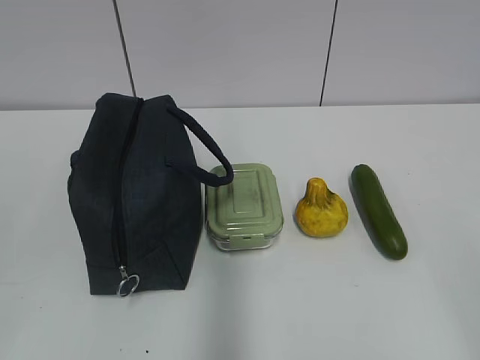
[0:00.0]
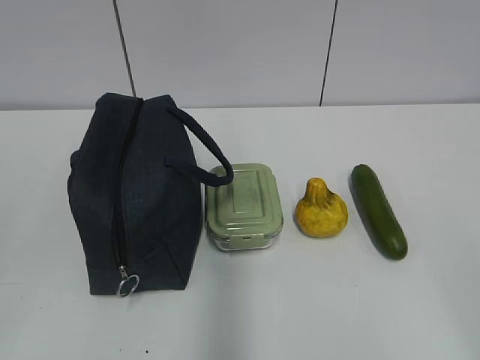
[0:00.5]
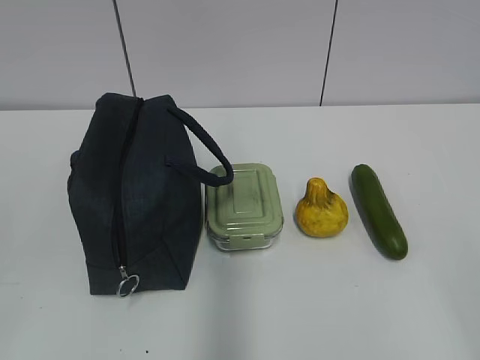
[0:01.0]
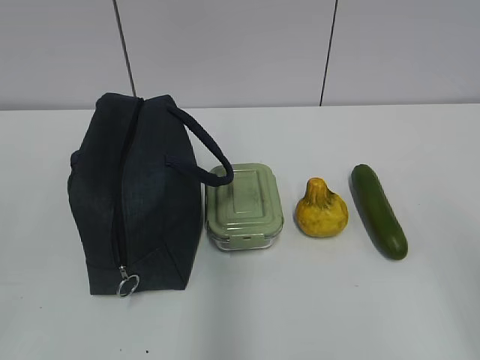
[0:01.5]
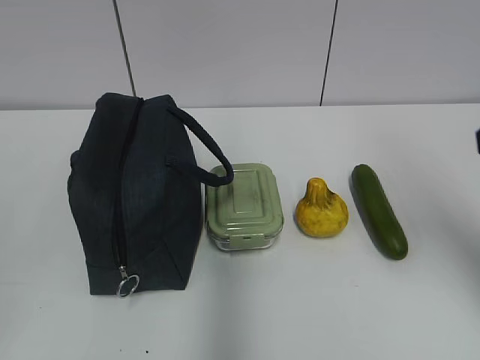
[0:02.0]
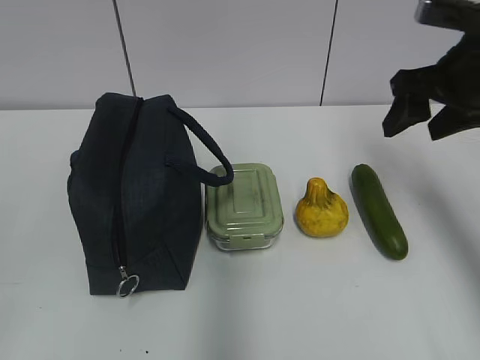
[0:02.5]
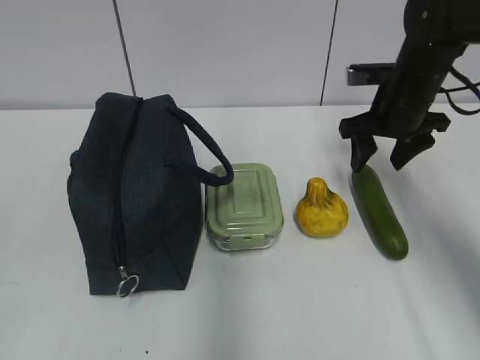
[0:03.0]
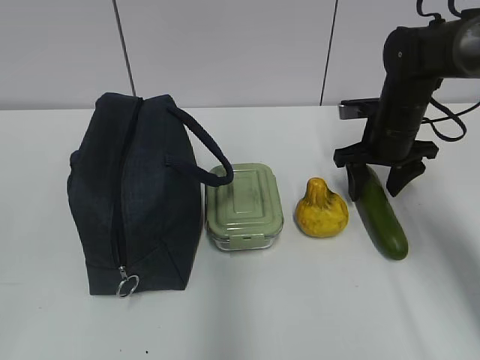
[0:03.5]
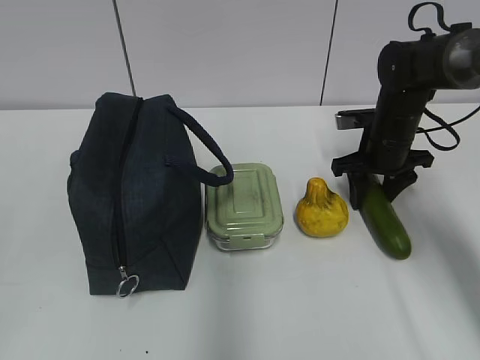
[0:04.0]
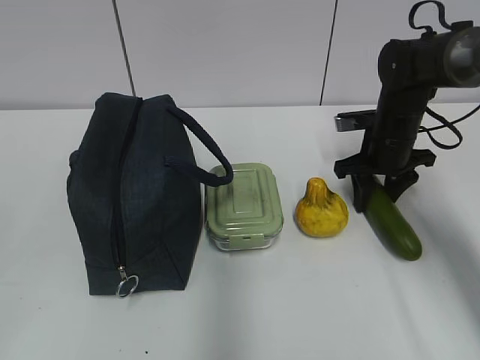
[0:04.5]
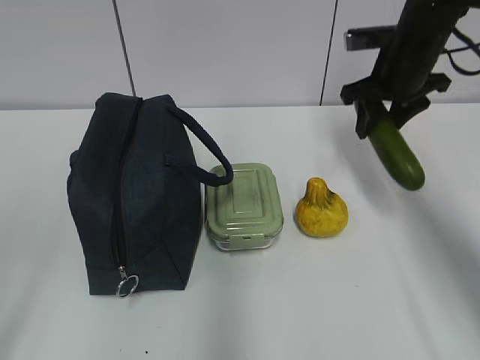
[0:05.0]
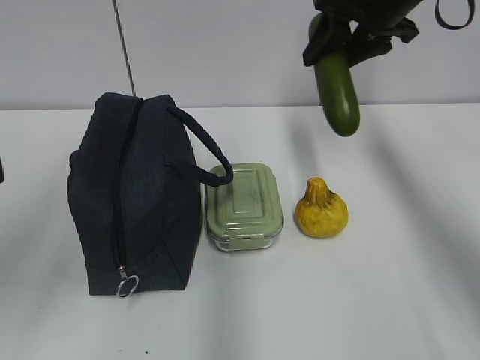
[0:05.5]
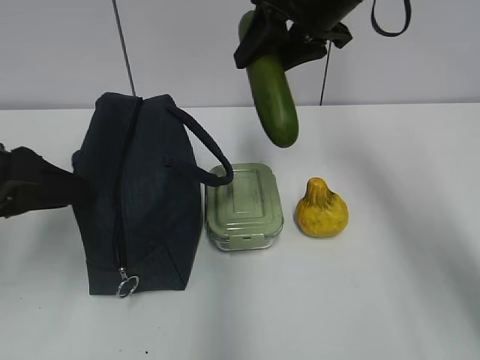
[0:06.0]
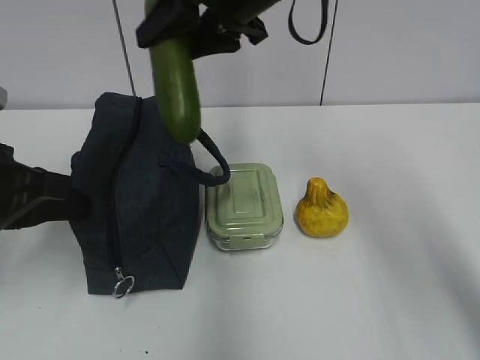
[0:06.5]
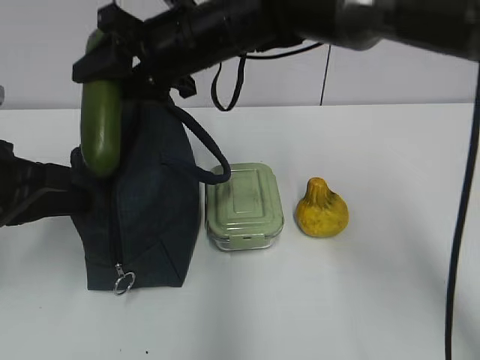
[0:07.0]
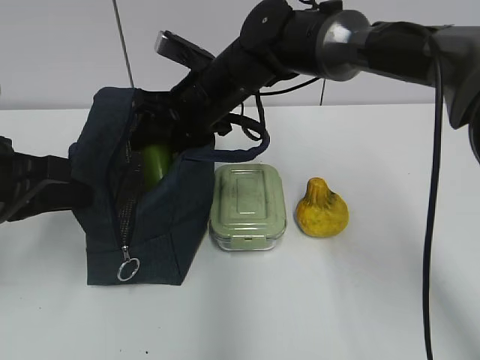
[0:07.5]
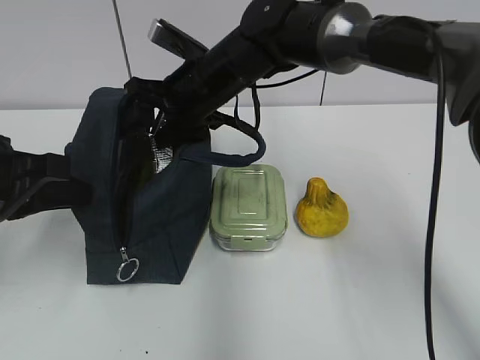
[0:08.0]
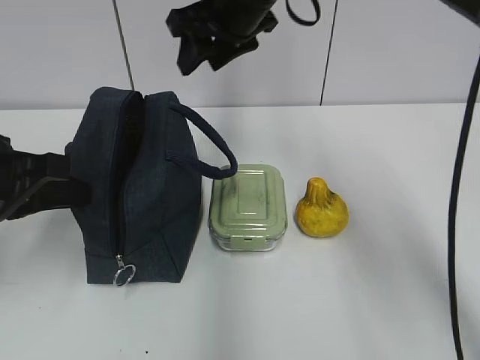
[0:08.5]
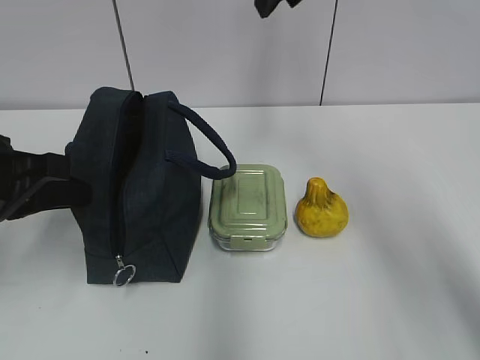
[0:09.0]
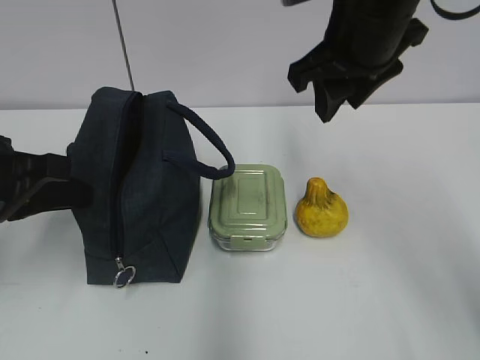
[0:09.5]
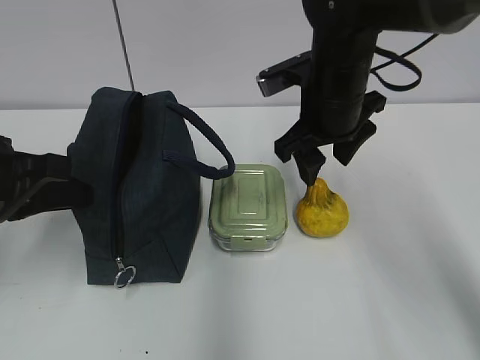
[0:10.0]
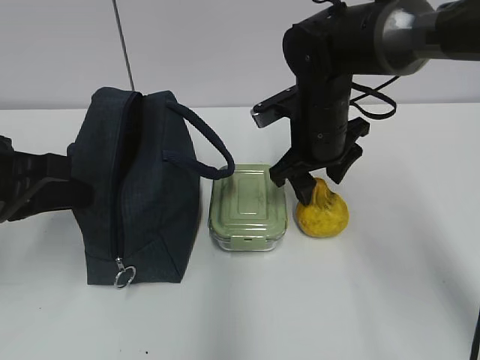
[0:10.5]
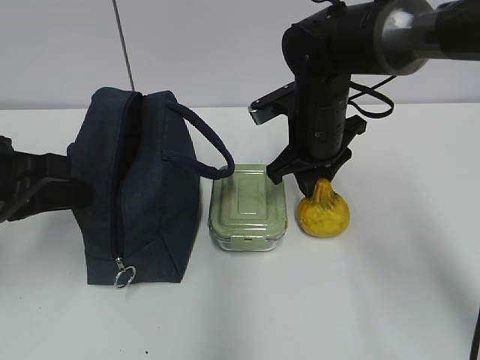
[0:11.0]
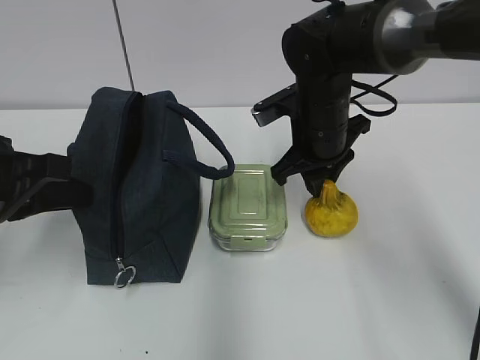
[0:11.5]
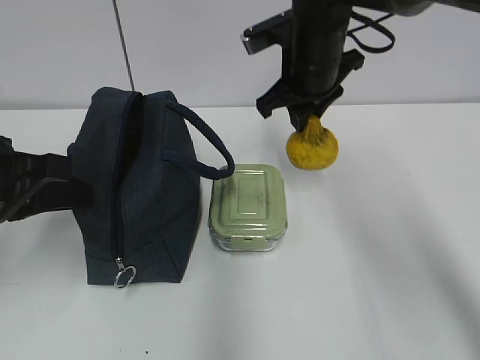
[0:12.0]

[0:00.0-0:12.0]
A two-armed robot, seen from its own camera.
Step, 0:00.0 to 0:04.0: Grab the cucumber with your right hand.
Step, 0:04.5 to 0:07.0: Grab the lunch bag with your left hand.
Step, 0:07.5 to 0:08.0: Place it into the bag with your right hand.
Step, 0:08.5 to 0:11.0: Grab the pear with your right hand.
0:02.0 to 0:04.0: The right gripper is displaced forward and downward by about 35 cm.
0:04.0 to 0:06.0: The left gripper shifts roughly 20 cm forward, while the right gripper moves upward and to the left, some 25 cm.
0:06.0 to 0:08.0: The right gripper travels to the left and downward by some 15 cm, and opens up. Meanwhile the left gripper closes.
0:08.0 to 0:10.0: The right gripper travels to the right and backward by some 15 cm, and goes upward and returns, some 15 cm each way.
0:10.0 to 0:12.0: The right gripper closes its fingers.

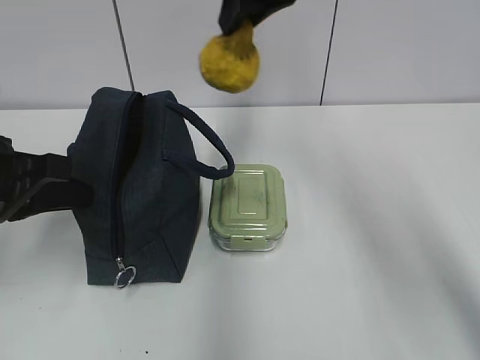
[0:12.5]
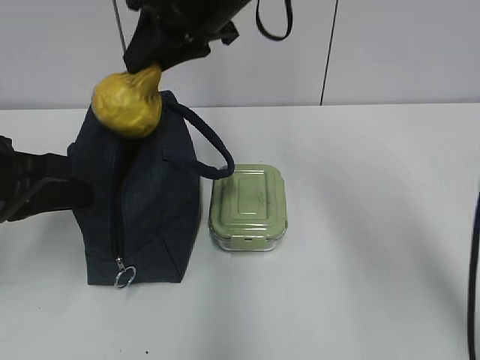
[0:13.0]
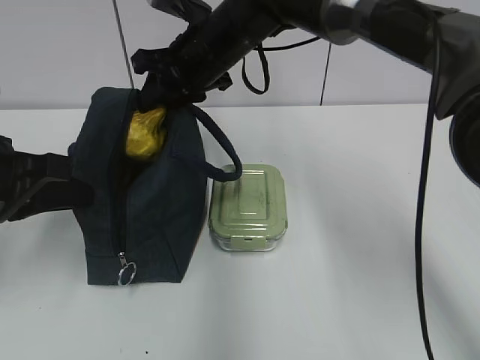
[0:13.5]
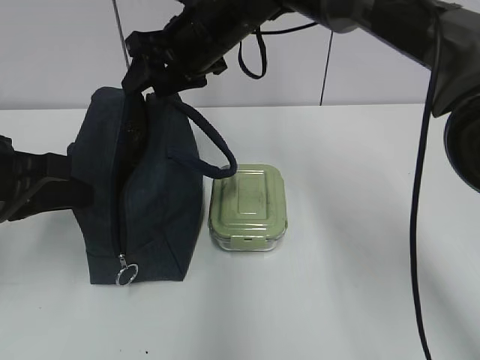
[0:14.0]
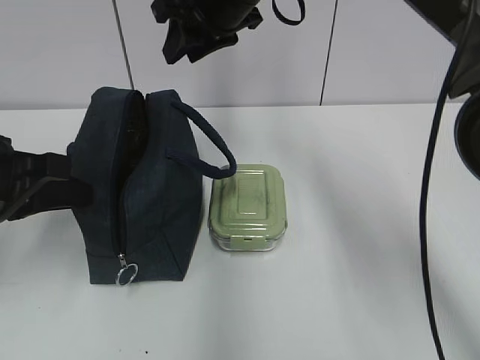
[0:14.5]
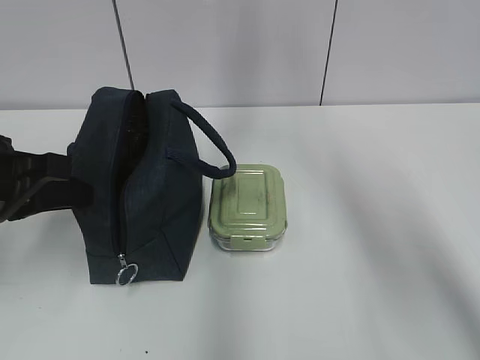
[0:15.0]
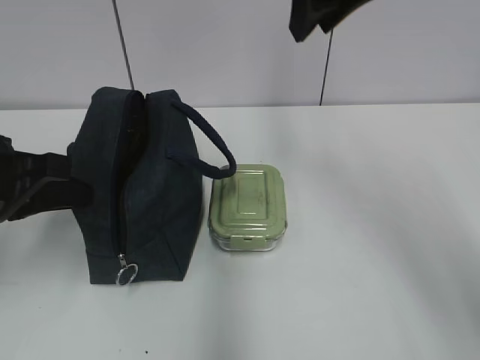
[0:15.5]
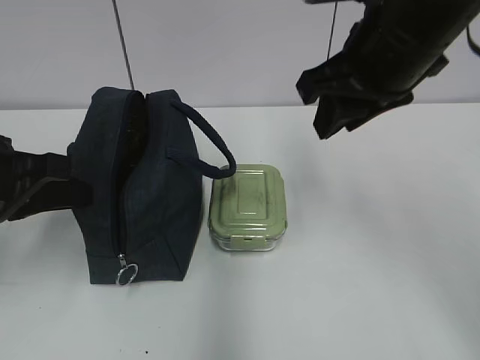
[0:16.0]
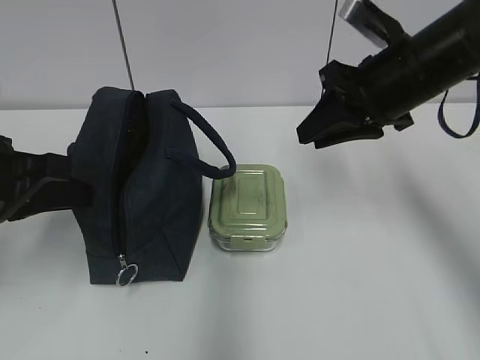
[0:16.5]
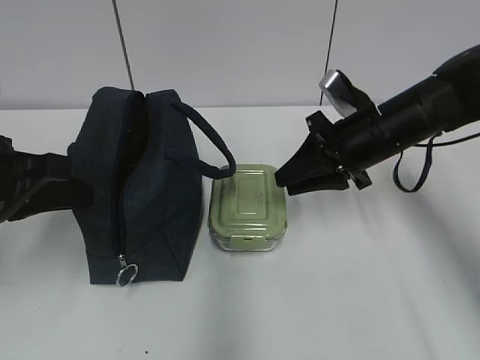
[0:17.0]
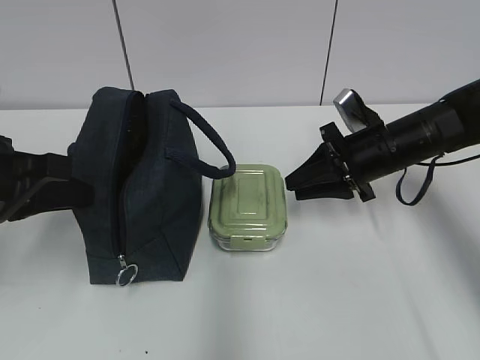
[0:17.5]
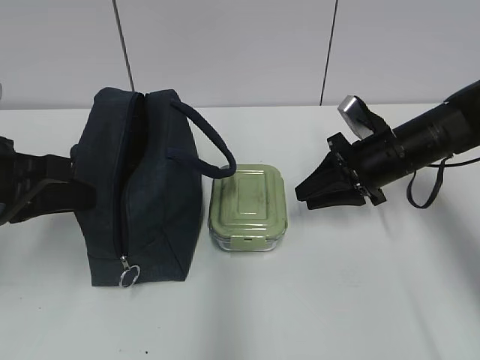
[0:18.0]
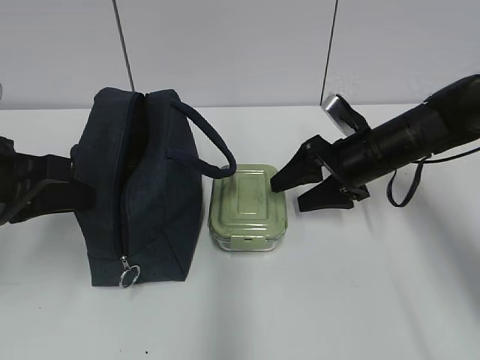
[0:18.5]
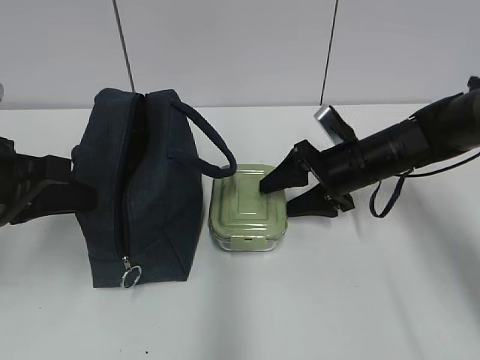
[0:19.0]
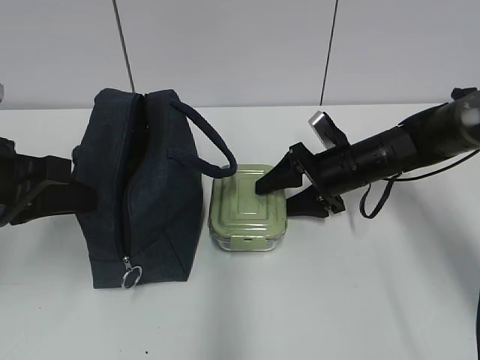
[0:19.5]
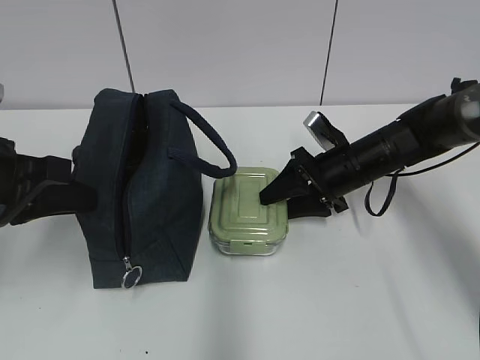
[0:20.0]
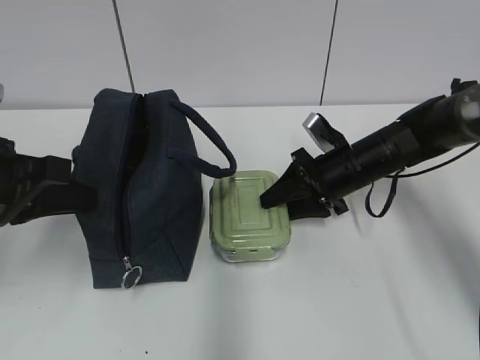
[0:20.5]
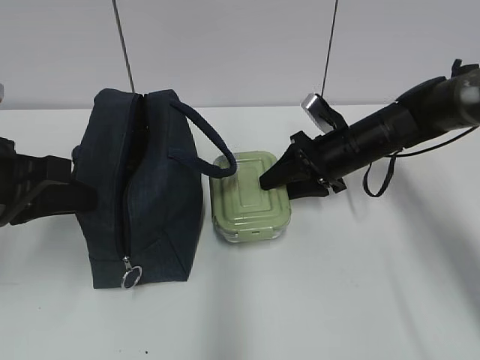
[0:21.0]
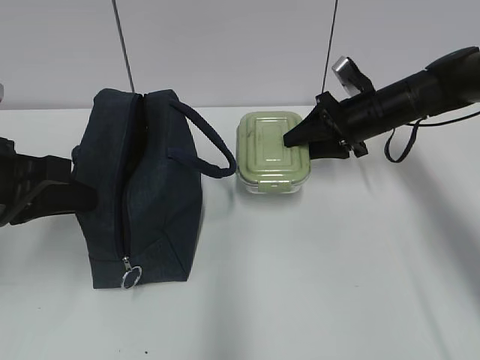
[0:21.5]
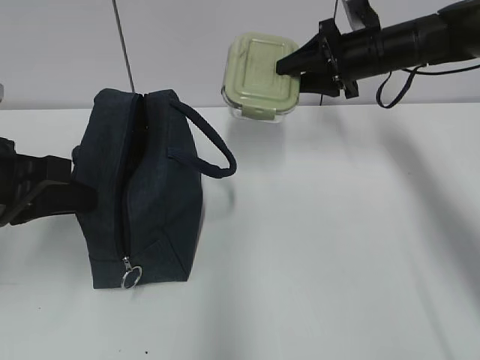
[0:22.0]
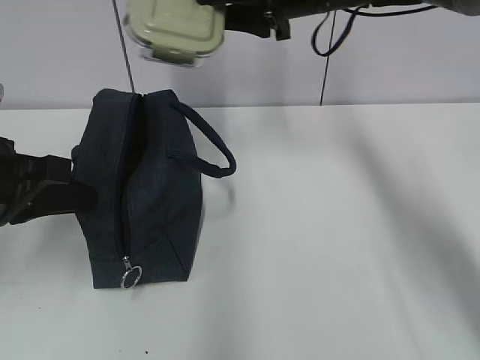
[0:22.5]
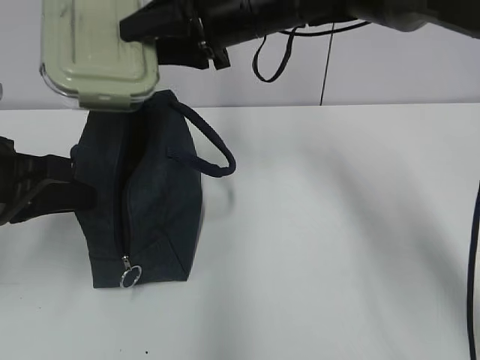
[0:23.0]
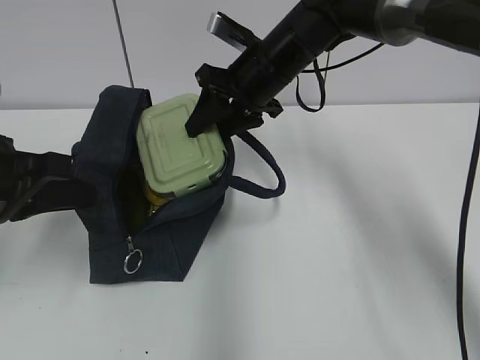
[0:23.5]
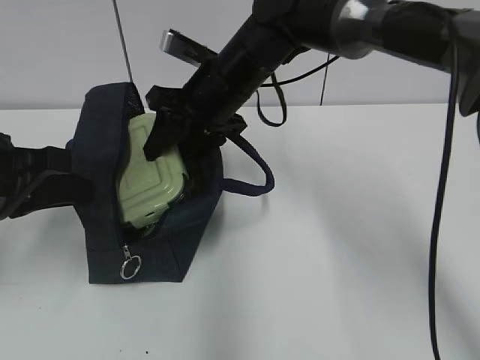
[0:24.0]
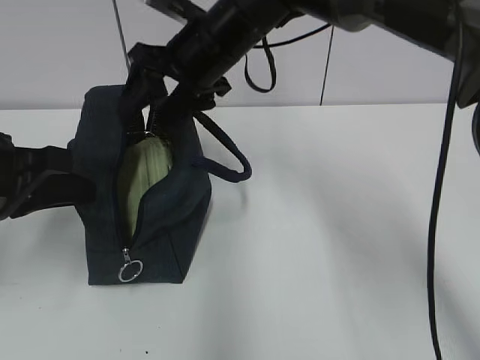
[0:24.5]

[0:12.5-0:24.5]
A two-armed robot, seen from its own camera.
Step, 0:14.5 to 0:20.0: Grab the lunch box with your right hand.
0:14.5 to 0:16.5: The right gripper travels to the right and backward by approximately 20 cm.
0:16.5 to 0:18.5: The right gripper shifts some 15 cm downward, and opens its fingers.
0:18.5 to 0:20.5: The right gripper closes its fingers.
0:20.5 to 0:22.5: The right gripper moves upward, approximately 20 cm.
0:22.5 to 0:24.5: The right gripper heads to the left, covering approximately 10 cm.

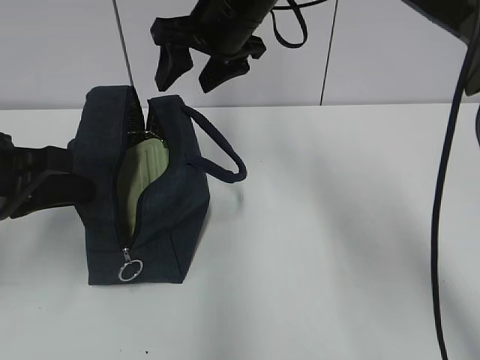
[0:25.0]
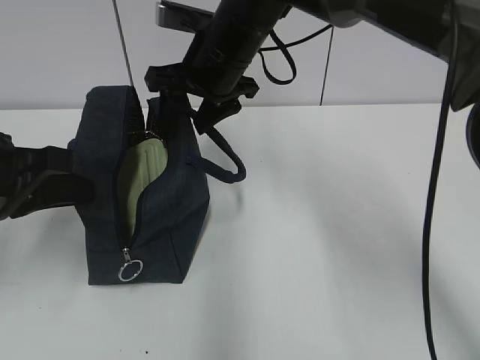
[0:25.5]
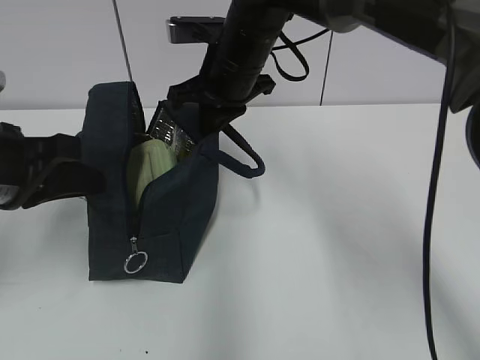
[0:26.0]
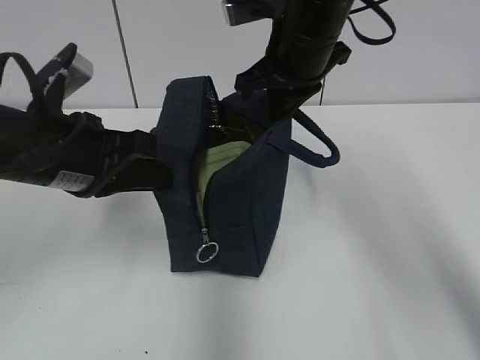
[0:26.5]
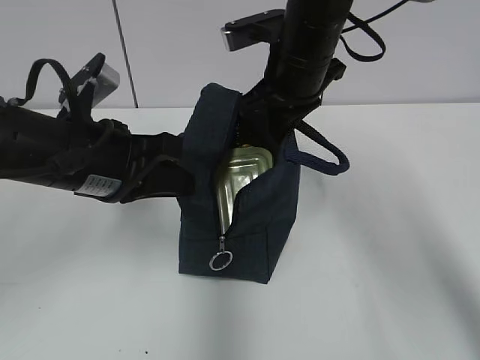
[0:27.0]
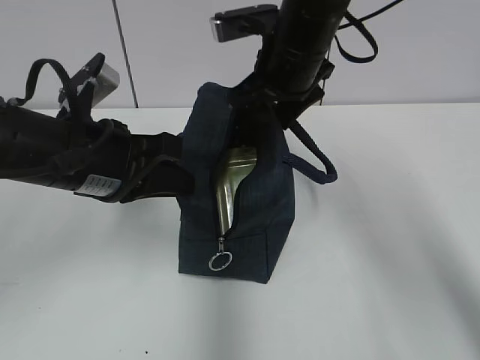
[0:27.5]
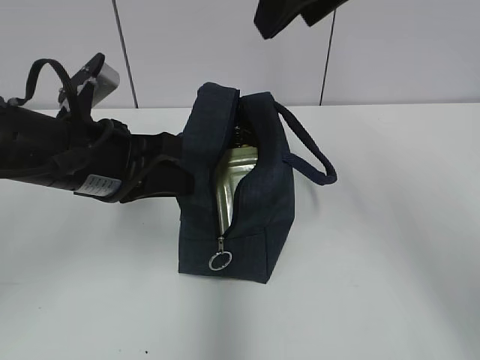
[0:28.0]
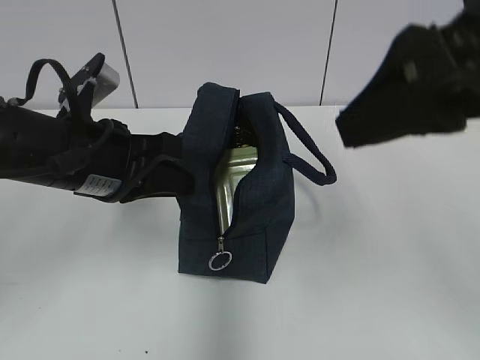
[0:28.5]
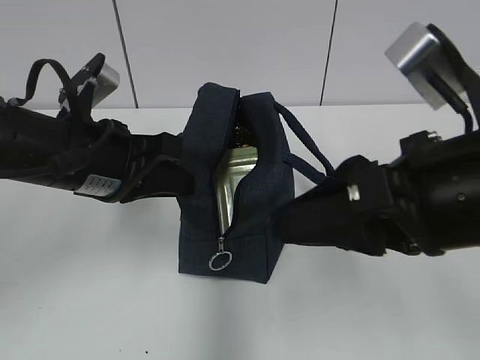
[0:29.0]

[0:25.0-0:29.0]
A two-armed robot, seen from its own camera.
Step, 0:25.0 to 0:26.0: Grab the lunch bag with your right hand.
0:25.0 to 0:27.0: The grippers both shift to the right by approximately 5 cm. The right gripper closes its fingers.
0:27.0 to 0:29.0: The right gripper moves backward, roughly 25 cm, and opens.
